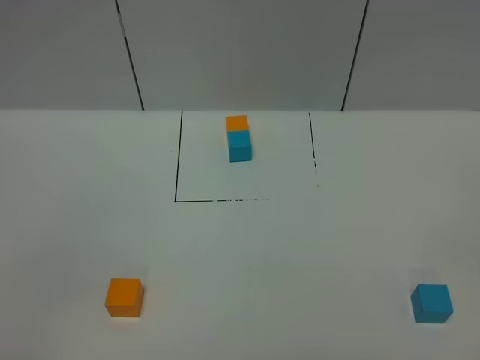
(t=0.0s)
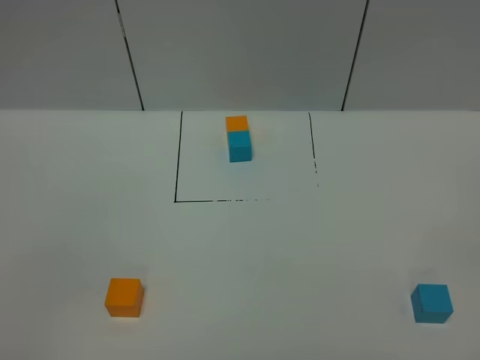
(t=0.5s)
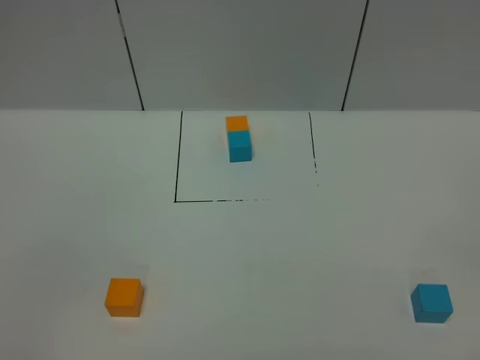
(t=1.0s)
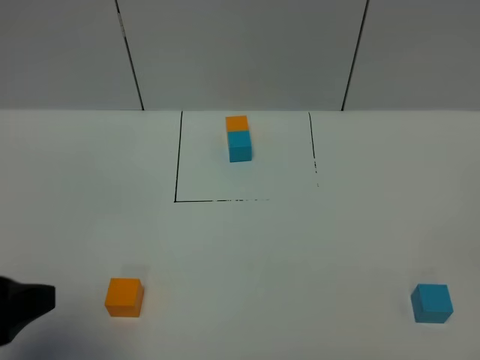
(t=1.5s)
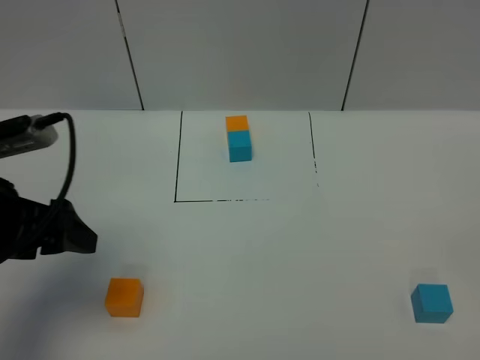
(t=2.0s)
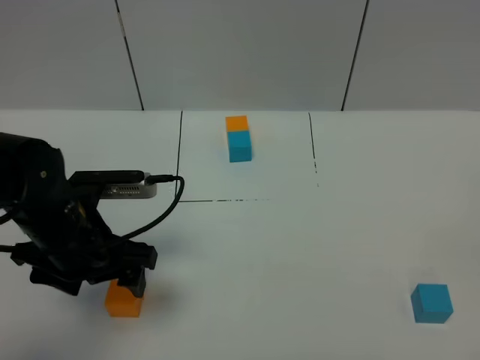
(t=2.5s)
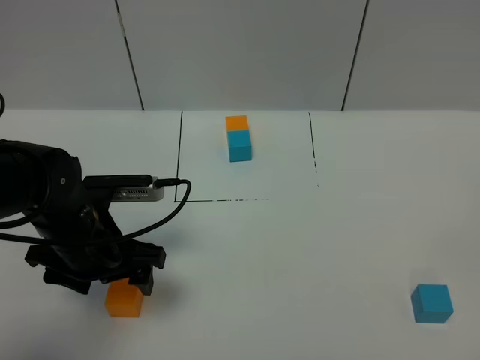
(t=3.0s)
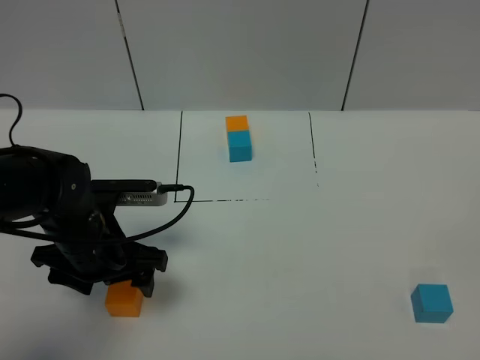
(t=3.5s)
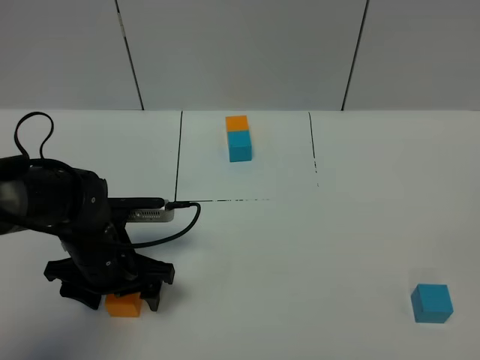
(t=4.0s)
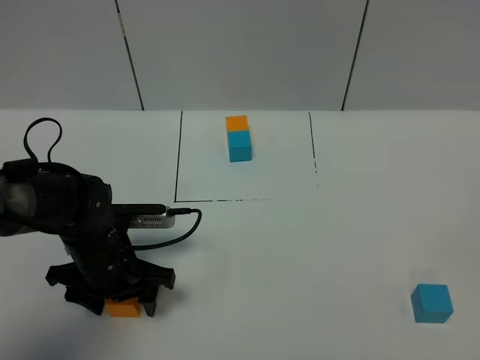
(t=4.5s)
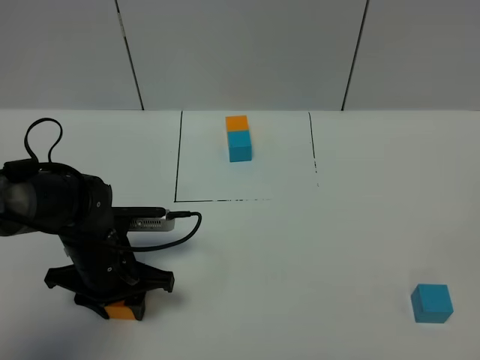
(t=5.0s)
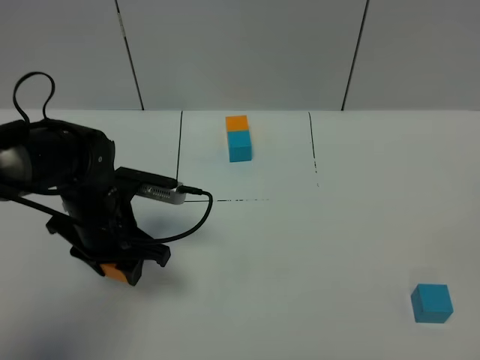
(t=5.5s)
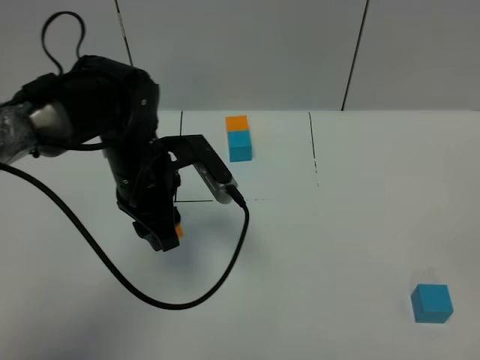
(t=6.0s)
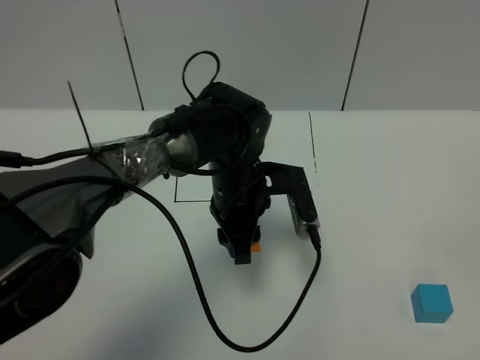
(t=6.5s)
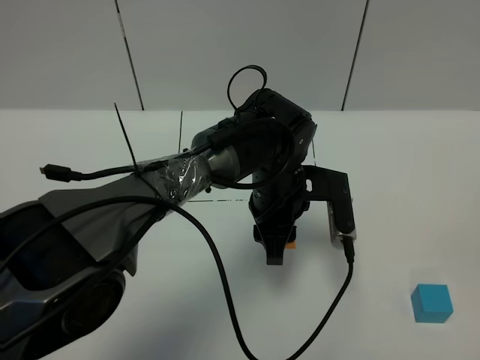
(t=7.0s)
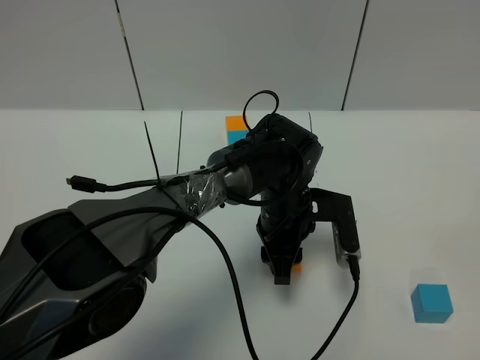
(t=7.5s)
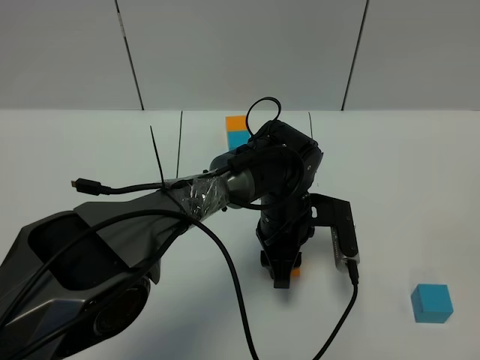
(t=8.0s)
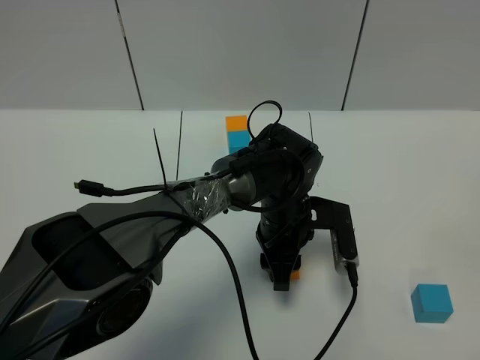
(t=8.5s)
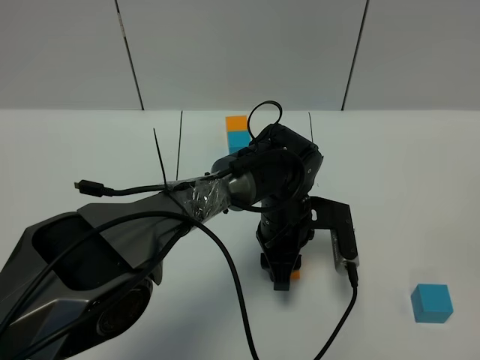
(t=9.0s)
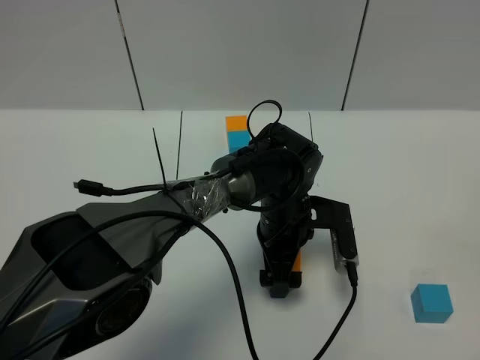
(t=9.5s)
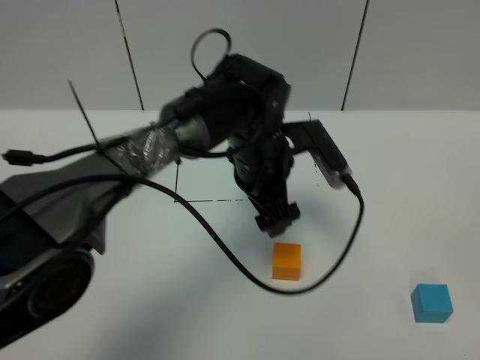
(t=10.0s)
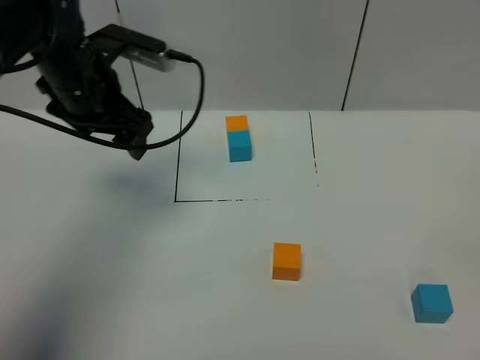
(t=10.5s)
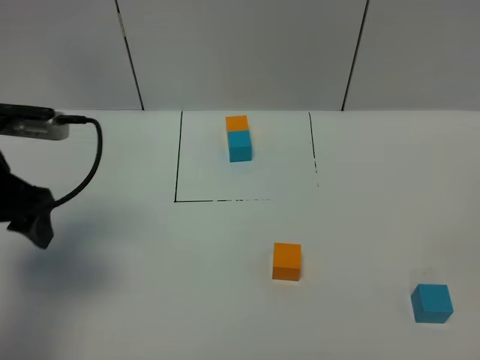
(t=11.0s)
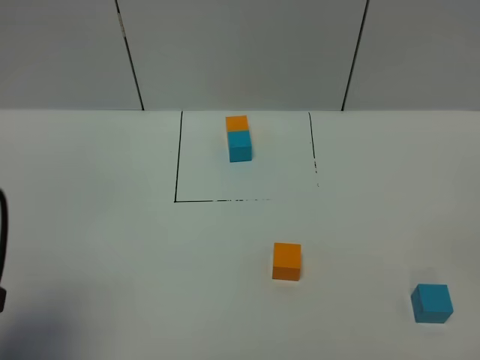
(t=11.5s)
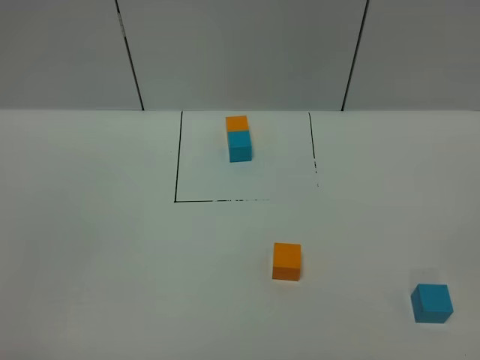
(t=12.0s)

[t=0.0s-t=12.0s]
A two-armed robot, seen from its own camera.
Task of the whole recording: According to the building block template in front, assemble the scattered blocks together.
Step, t=1.5s to t=9.5s: Put the orange cube in the center of the table.
t=0.0s to t=2.0s: The left gripper goes some 25 cm forward.
t=2.0s to t=4.0s: The left gripper moves downward and to the right, some 15 cm.
t=4.0s to t=6.0s: The left gripper is displaced upward, to the right and forward by some 15 cm, and closes its fingers.
t=6.0s to t=8.0s: The left gripper travels to the right and downward by roughly 20 cm.
t=8.0s to t=10.0s: The left gripper moves upward, some 10 cm, and opens up.
t=10.0s to t=12.0s: The left gripper heads backward and to the left, covering approximately 50 cm.

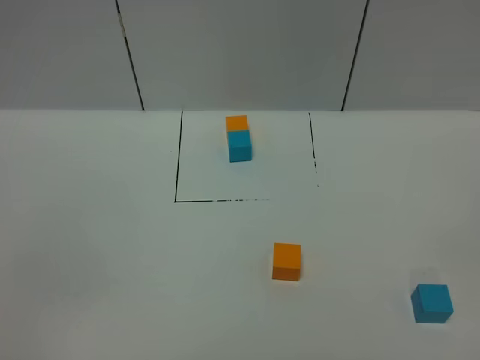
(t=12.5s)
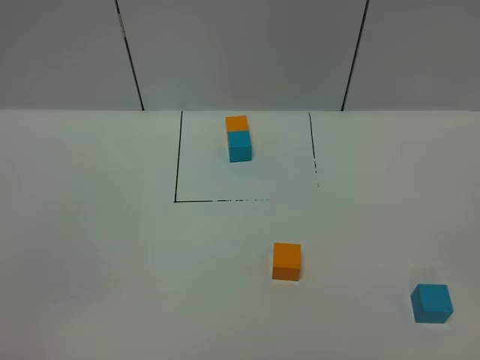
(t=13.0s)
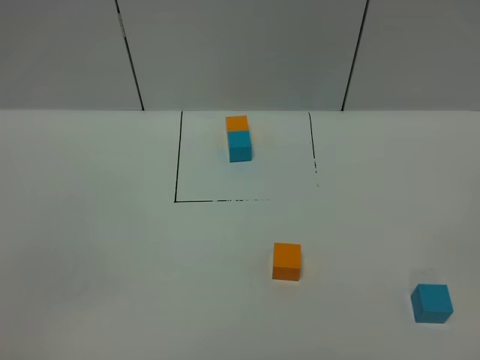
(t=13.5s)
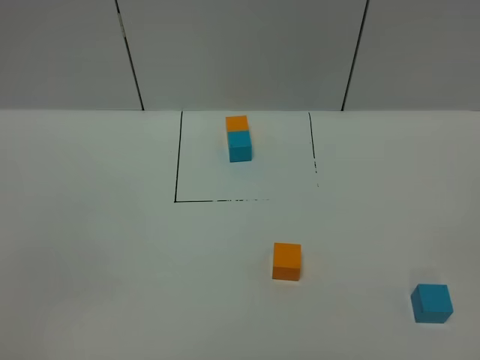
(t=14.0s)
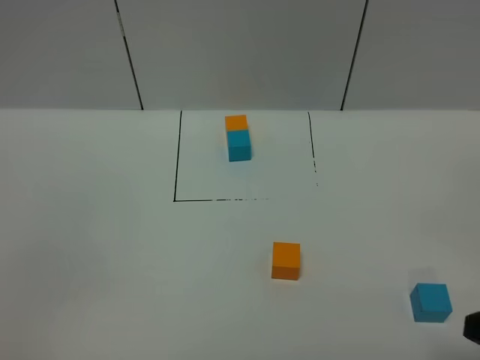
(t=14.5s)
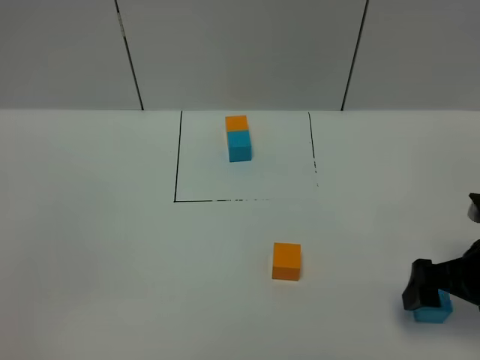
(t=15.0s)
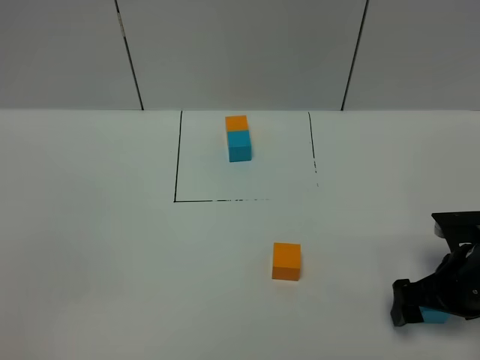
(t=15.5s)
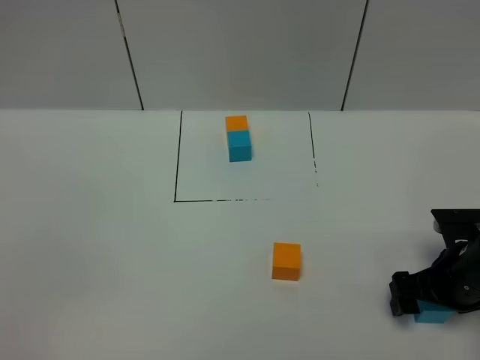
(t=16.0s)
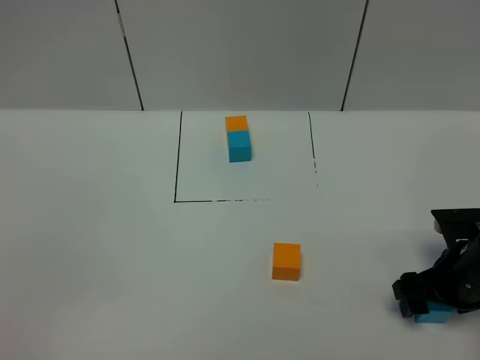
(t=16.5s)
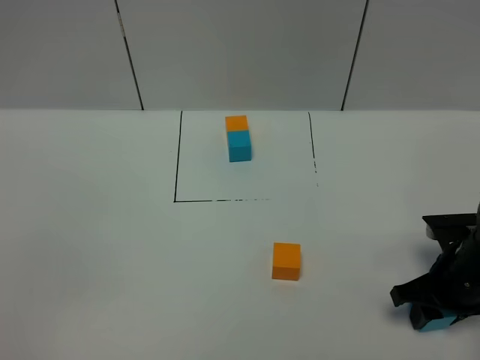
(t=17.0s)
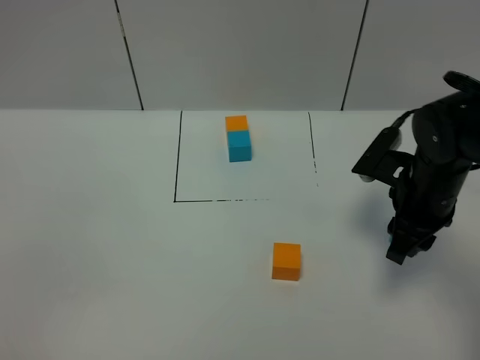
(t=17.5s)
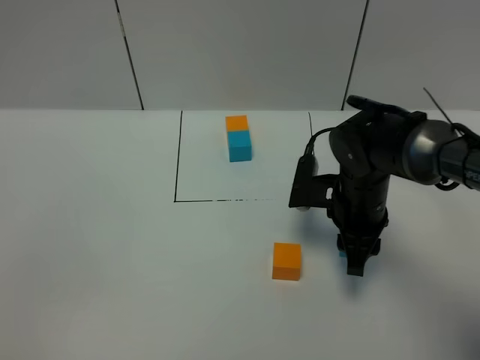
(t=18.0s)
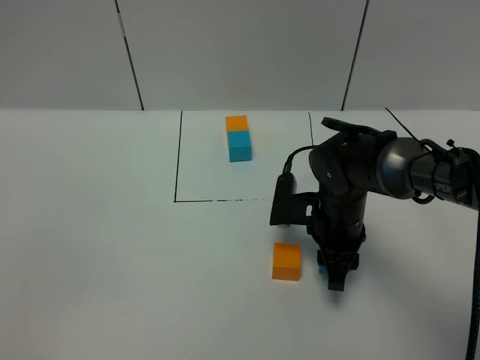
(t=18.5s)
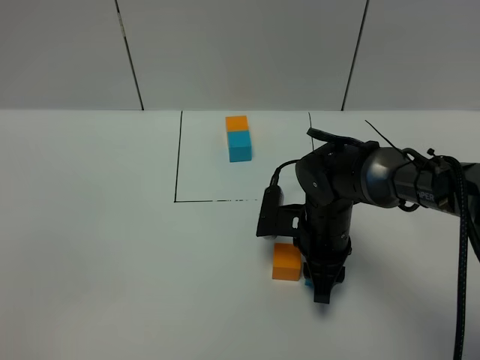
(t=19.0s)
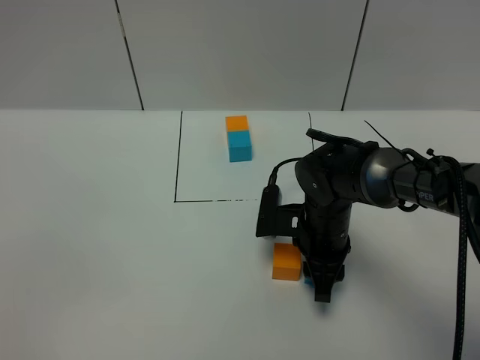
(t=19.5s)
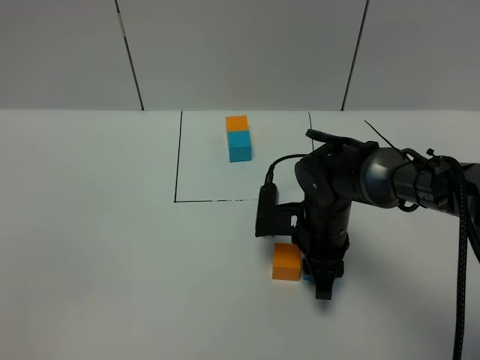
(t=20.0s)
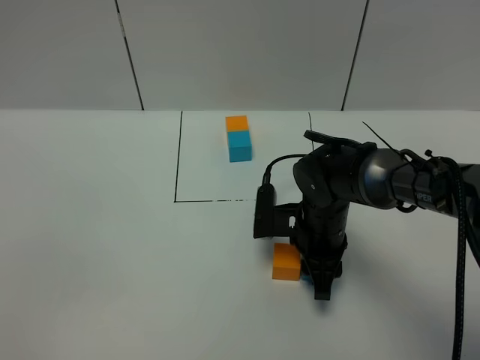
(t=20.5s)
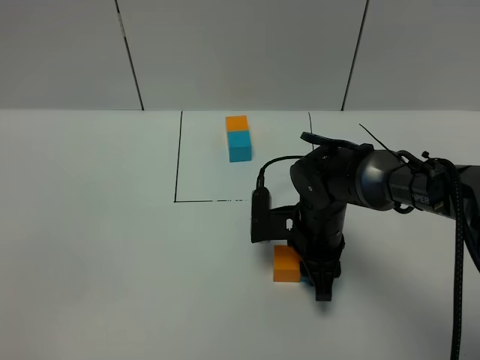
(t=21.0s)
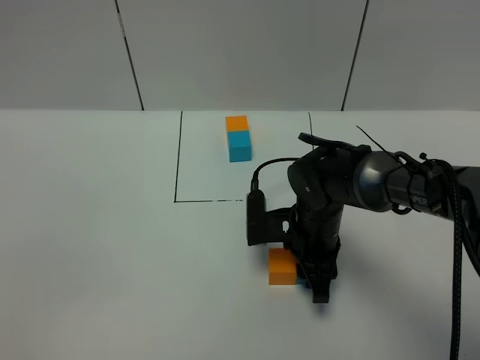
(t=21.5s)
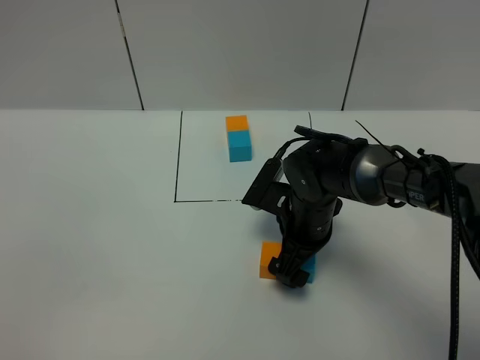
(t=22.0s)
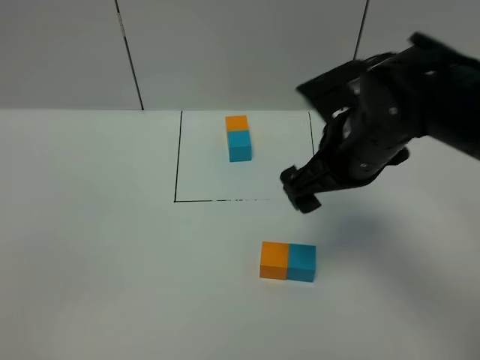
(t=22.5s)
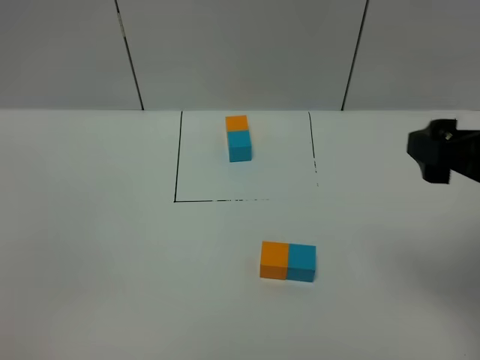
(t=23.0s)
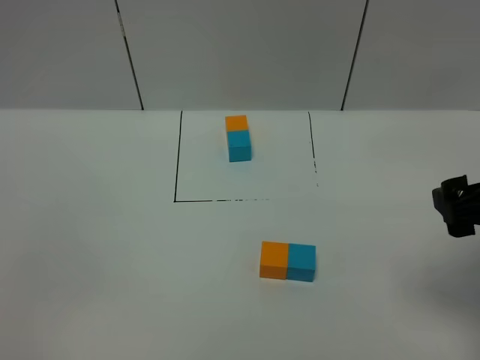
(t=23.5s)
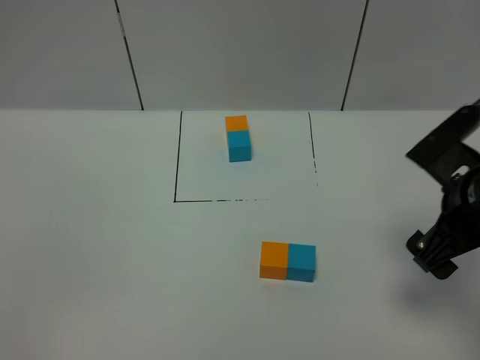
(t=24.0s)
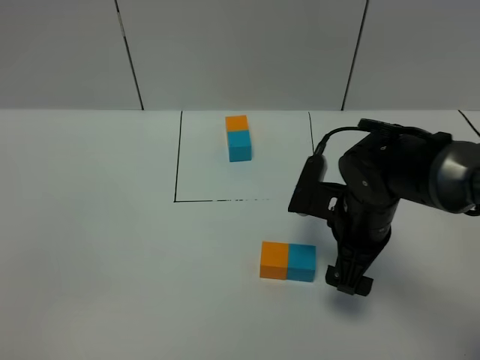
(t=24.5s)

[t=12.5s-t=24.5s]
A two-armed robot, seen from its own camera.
Task of the whole recording: According to the building block template in front, assemble the scattered blocks together.
Step, t=12.5s to t=22.0s: Put the blue cube on the right of the orange cube.
t=14.5s to t=16.5s: The right gripper is displaced downward and forward by about 20 cm, and closes.
t=16.5s to t=18.5s: The right gripper moves to the left and forward, about 20 cm, and closes.
t=18.5s to t=20.5s: The grippers move only a little.
t=20.5s to t=22.5s: The right gripper is displaced upward by roughly 20 cm, and opens up.
t=22.5s to t=24.5s: The right gripper shifts some 10 cm downward.

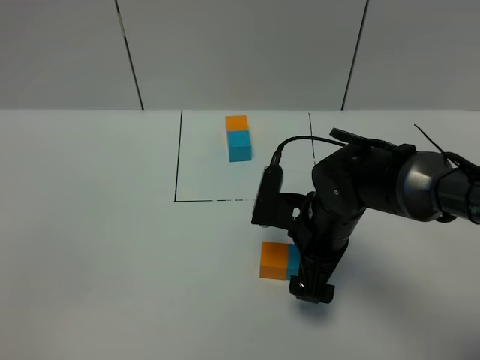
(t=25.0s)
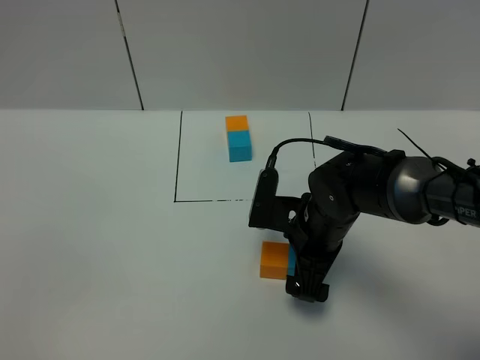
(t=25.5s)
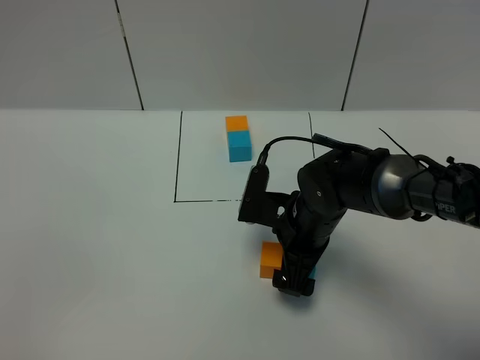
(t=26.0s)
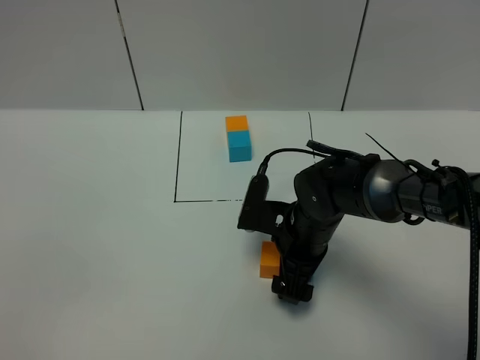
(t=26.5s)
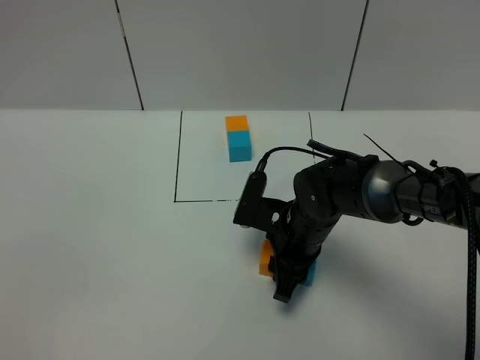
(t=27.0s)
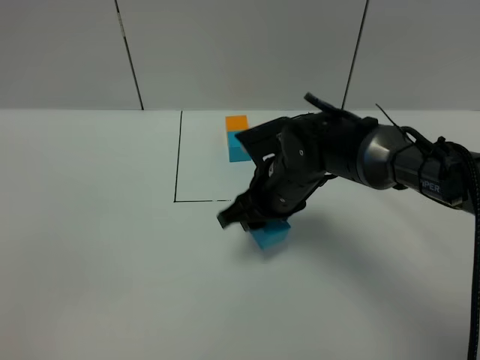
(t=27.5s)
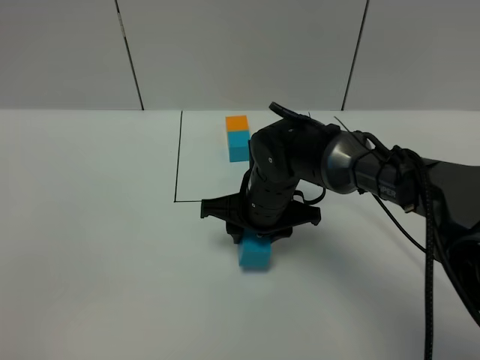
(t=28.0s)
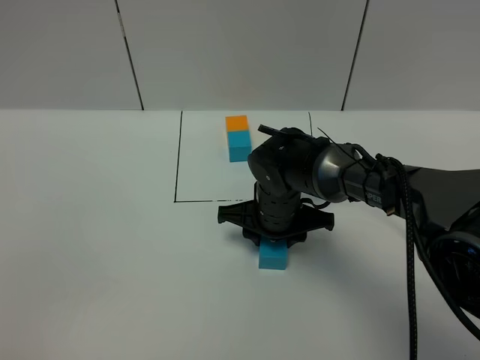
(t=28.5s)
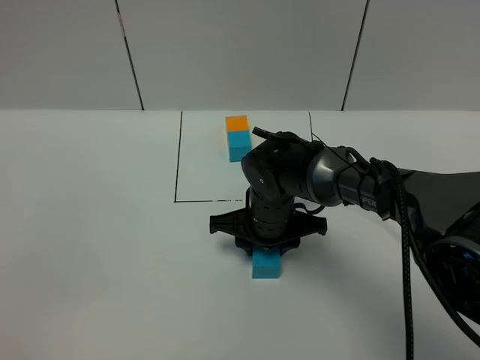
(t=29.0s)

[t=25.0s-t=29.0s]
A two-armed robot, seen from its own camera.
Task of the whole recording: According to the building block template in front, assemble the scattered blocks together.
t=25.0s to t=27.0s: The right gripper closes up.
t=27.0s to t=29.0s: The right gripper shifts by approximately 5 cm.
